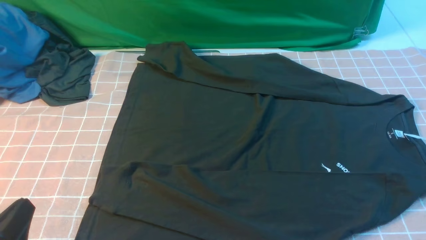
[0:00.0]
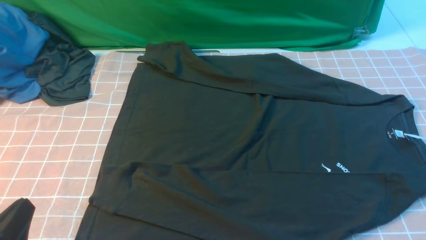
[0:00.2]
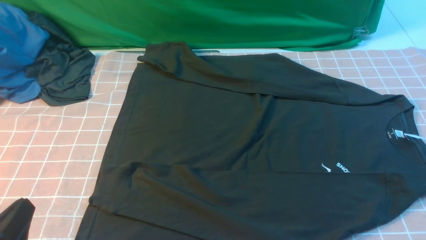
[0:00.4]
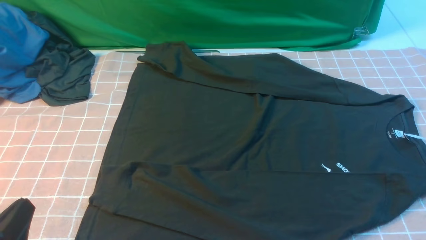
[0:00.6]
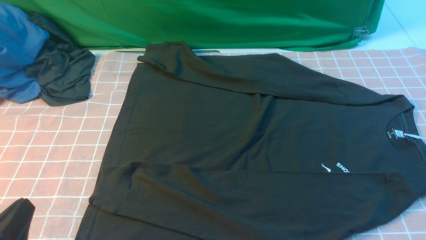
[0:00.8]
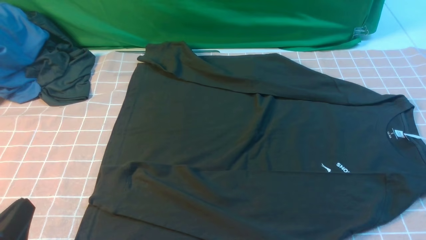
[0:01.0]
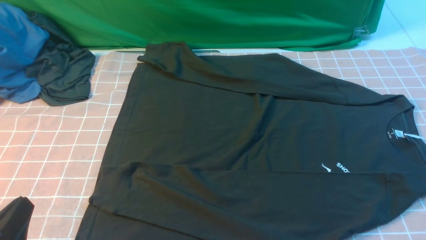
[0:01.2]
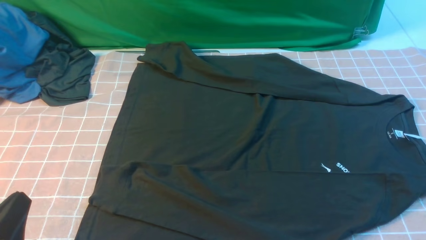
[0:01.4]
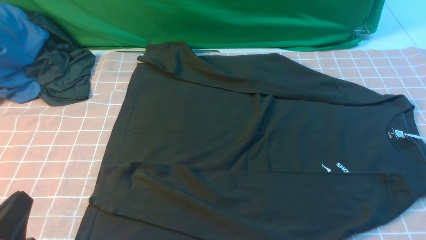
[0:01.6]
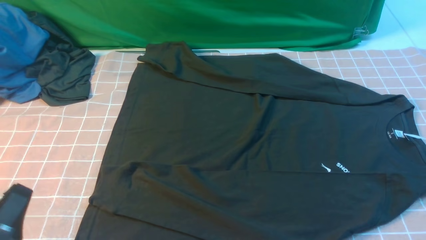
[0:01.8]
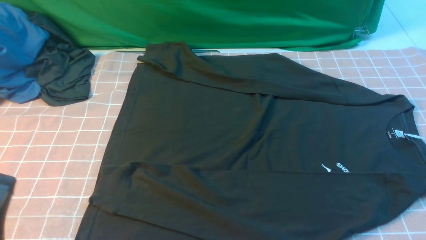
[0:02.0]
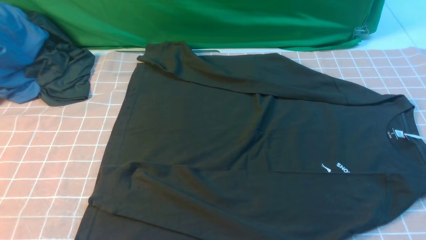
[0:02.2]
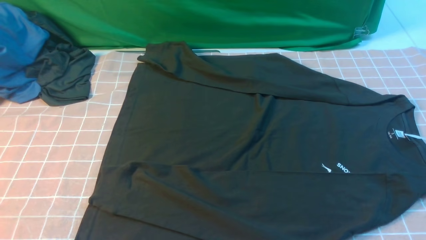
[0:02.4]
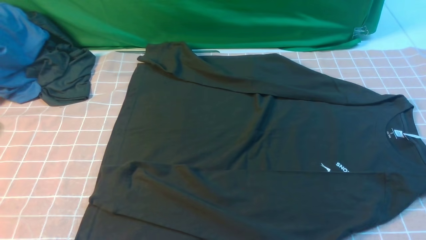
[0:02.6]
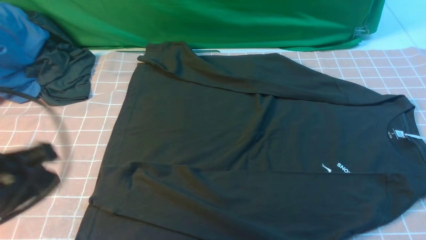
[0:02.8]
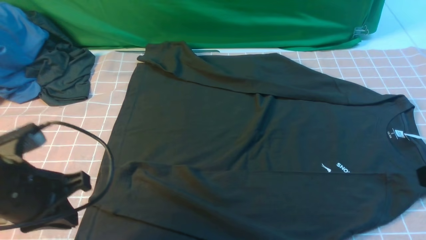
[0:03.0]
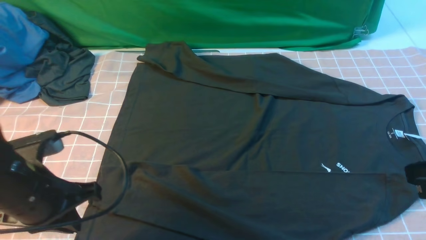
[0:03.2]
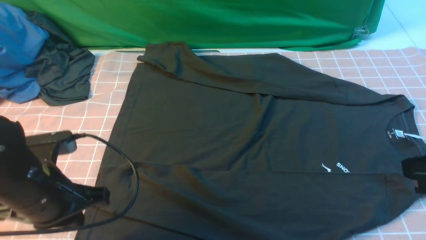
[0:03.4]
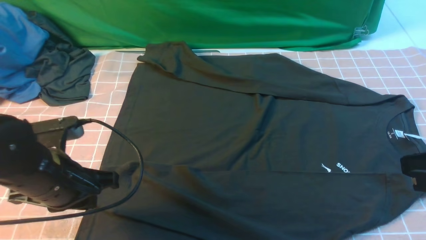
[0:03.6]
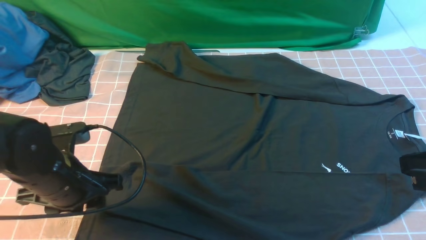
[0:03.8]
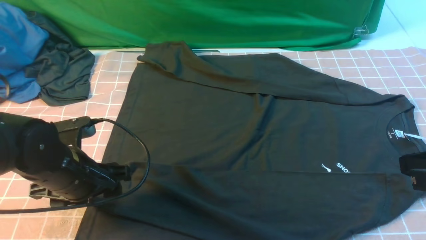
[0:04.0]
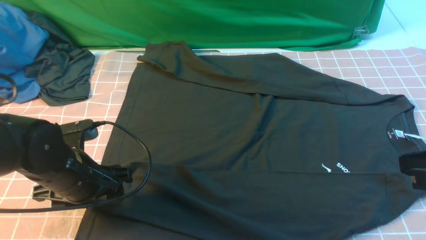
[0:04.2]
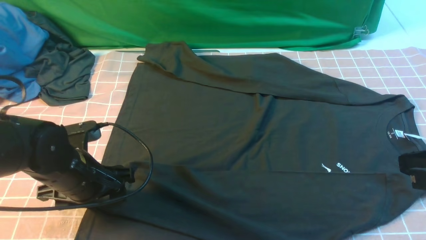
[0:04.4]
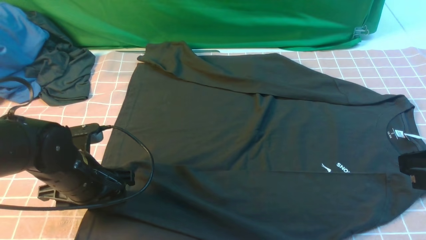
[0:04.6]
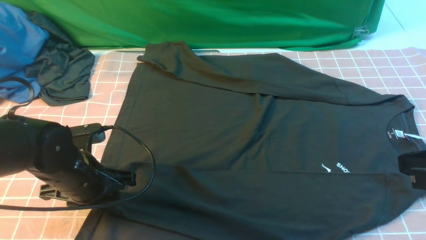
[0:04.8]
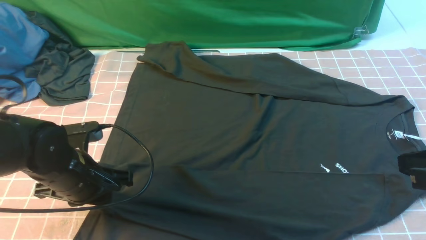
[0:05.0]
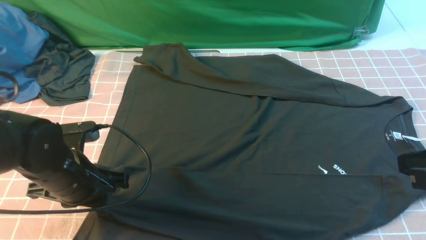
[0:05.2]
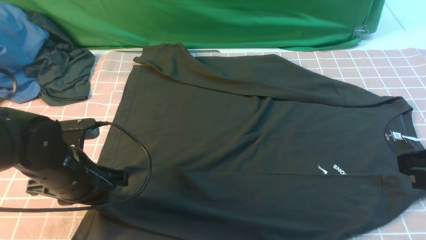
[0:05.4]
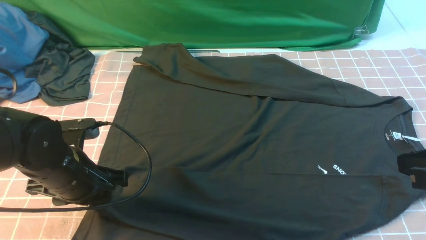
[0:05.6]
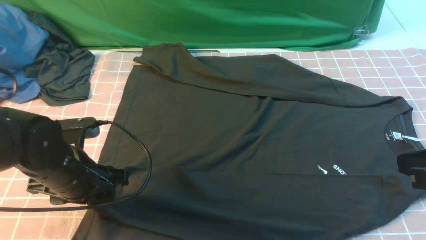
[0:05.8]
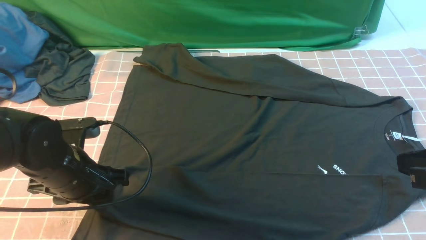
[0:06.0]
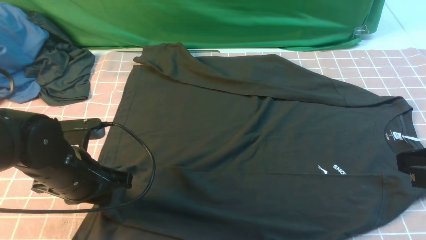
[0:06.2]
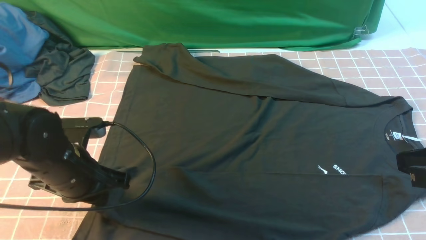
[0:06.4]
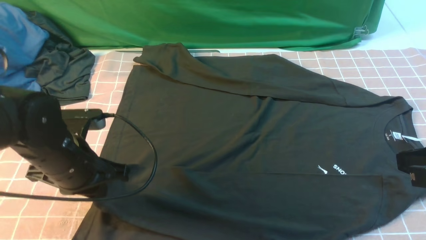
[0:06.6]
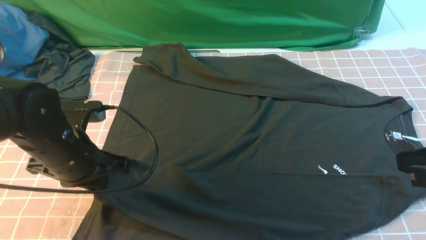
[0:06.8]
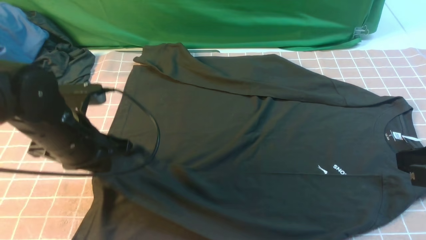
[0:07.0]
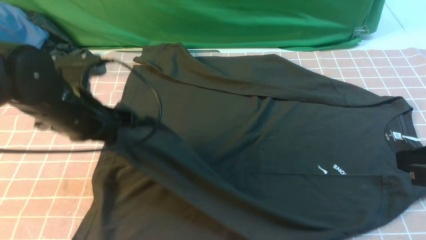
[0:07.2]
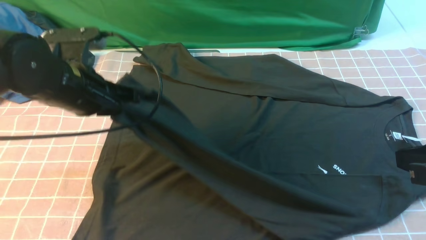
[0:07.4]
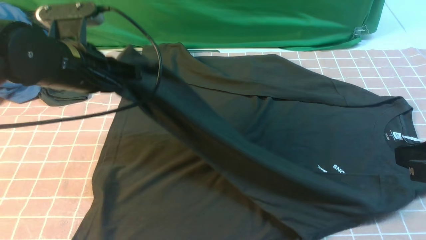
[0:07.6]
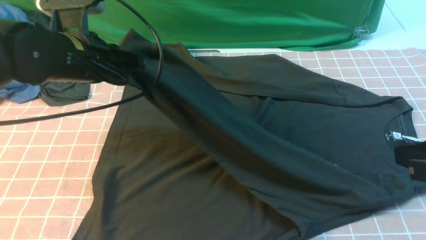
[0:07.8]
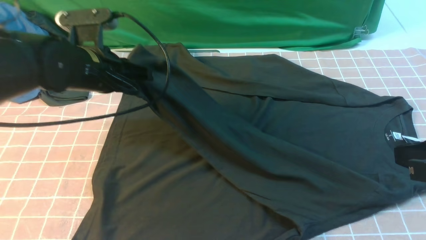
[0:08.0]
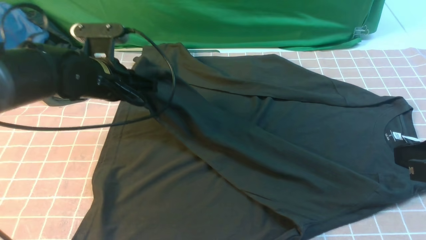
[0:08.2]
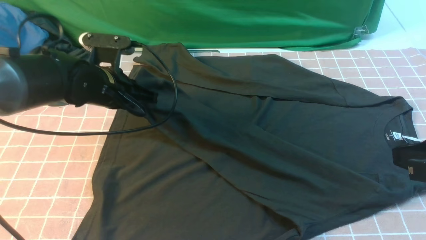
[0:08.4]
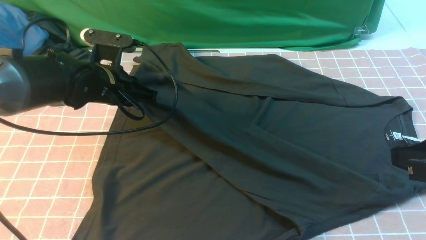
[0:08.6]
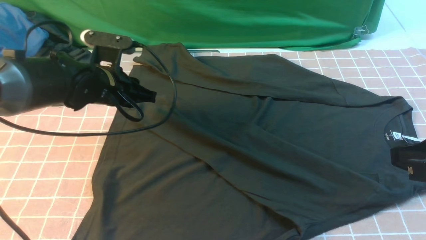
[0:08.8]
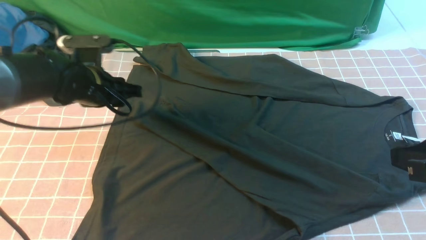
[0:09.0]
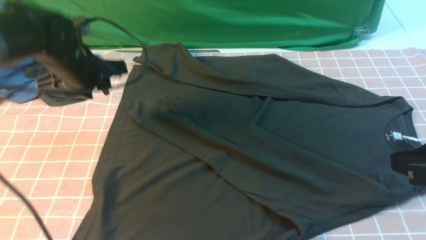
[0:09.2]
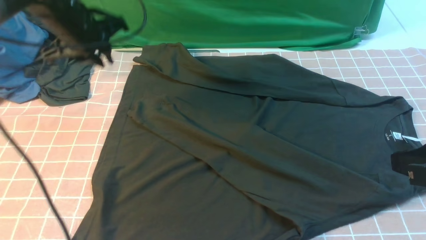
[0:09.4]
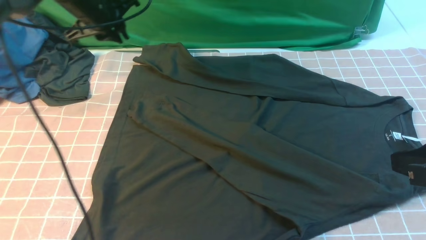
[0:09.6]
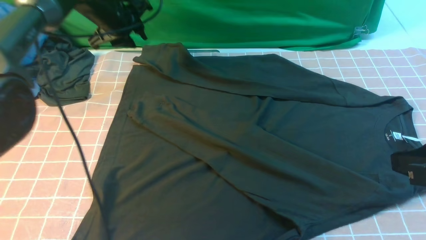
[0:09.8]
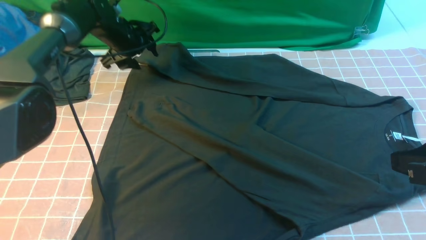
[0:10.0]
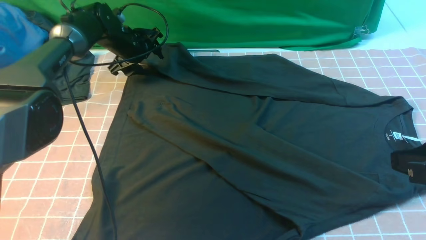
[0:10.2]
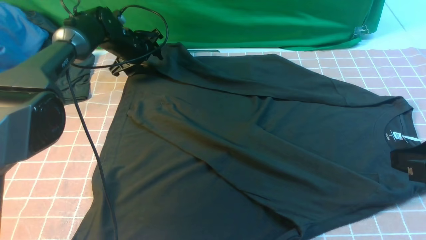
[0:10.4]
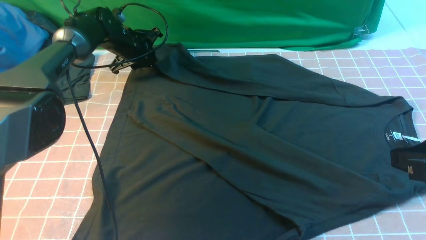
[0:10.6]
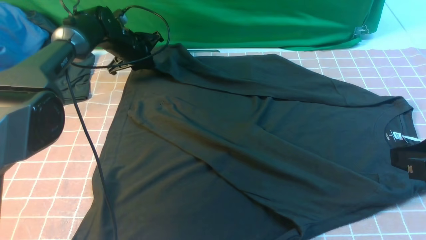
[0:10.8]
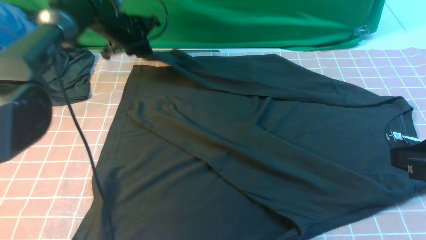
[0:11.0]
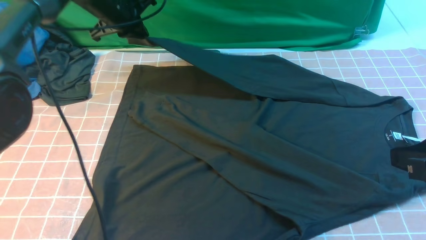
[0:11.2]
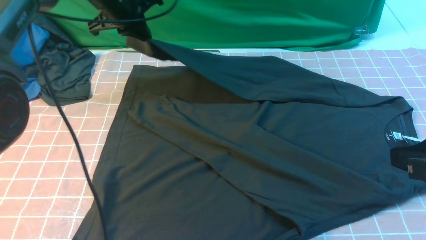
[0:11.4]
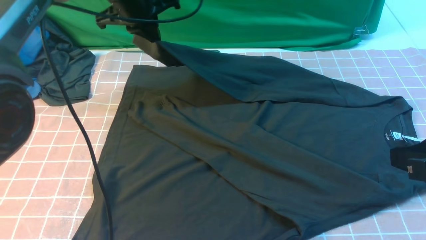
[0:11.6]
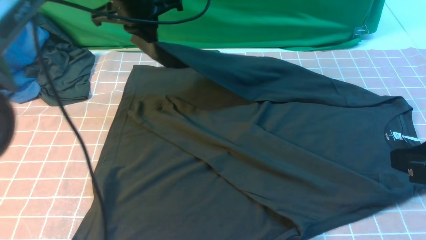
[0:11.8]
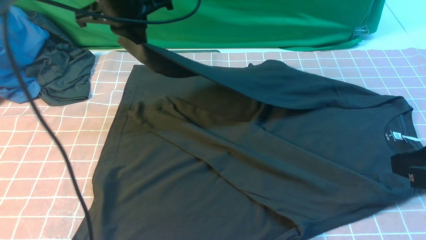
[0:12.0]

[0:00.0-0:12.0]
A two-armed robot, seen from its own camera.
Step, 0.0 to 6.6 s: use the left arm to clamp the cuff closest to it.
Step, 6.8 to 9.0 s: use the left arm to drag and place the cuff at the centered position on the left edge of the fabric.
Step, 9.2 to 10.8 s: use the left arm to clamp the cuff farthest from it.
1.6 to 3.0 s: The left gripper shifts approximately 15 cm forward and upward.
3.0 to 4.4 s: The left gripper is displaced downward and forward by roughly 15 cm, and opens.
4.4 to 6.0 s: The left gripper closes up.
6.0 to 7.6 s: The left gripper shifts approximately 10 cm upward and forward, and closes.
7.6 to 9.0 s: The left gripper goes some 10 cm downward and forward, and opens.
9.0 to 10.4 s: The left gripper goes about 20 cm forward, and opens up.
10.4 to 12.0 s: The left gripper goes about 20 cm upward and backward, and closes.

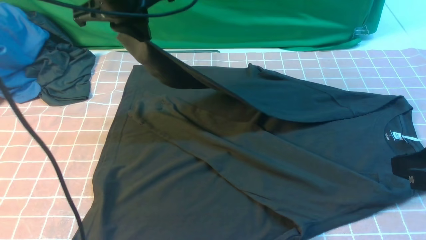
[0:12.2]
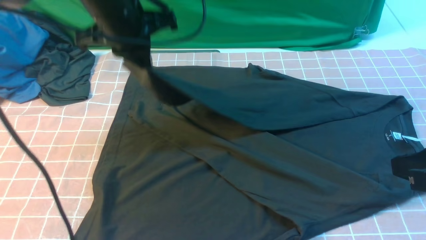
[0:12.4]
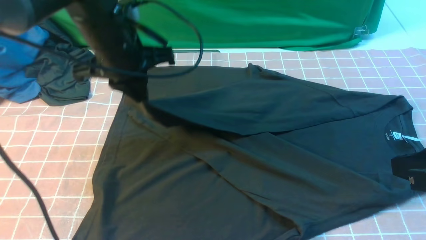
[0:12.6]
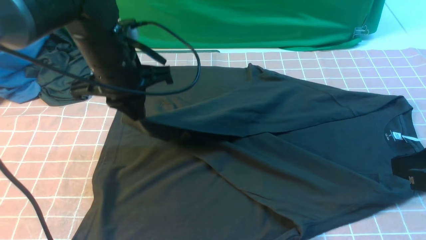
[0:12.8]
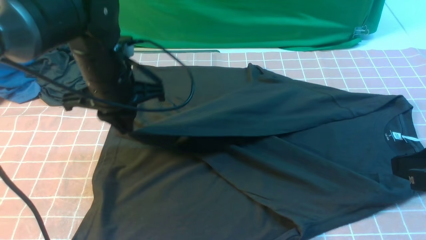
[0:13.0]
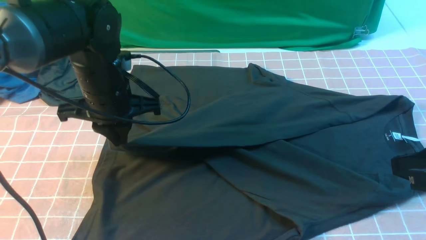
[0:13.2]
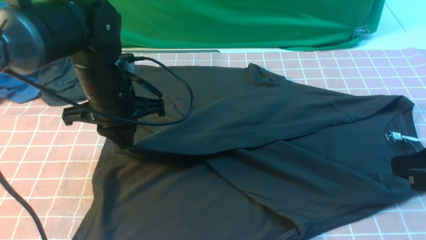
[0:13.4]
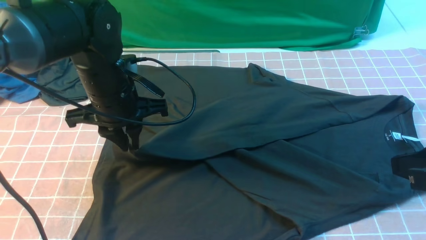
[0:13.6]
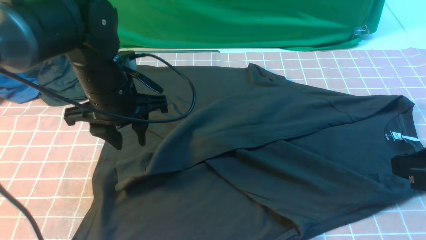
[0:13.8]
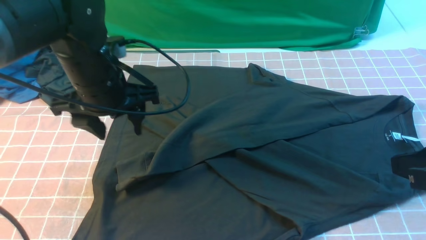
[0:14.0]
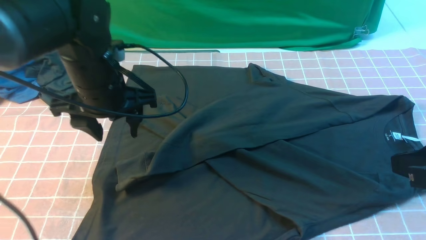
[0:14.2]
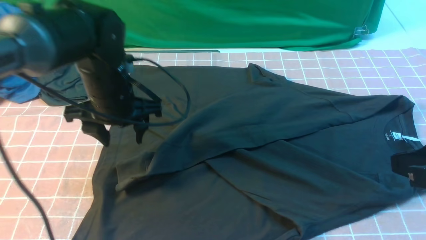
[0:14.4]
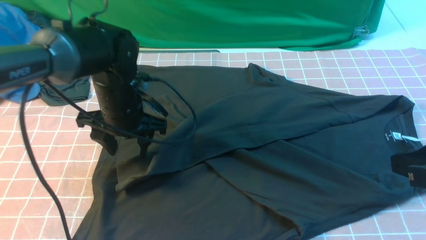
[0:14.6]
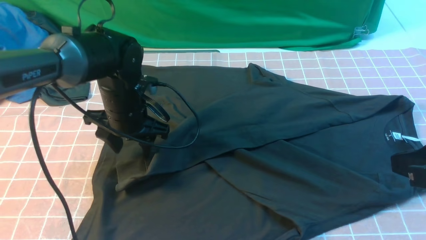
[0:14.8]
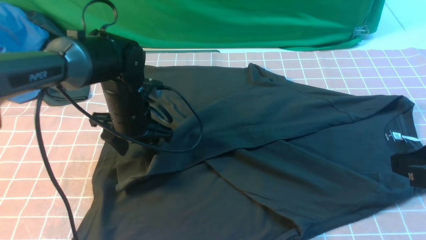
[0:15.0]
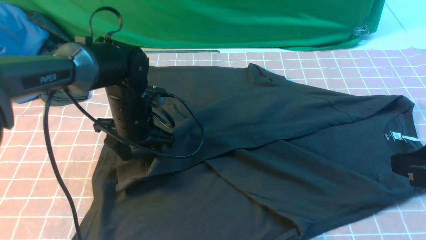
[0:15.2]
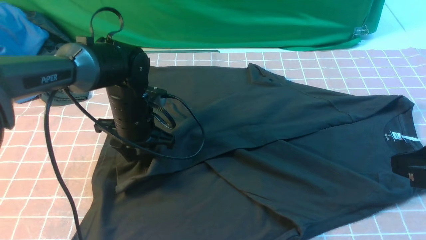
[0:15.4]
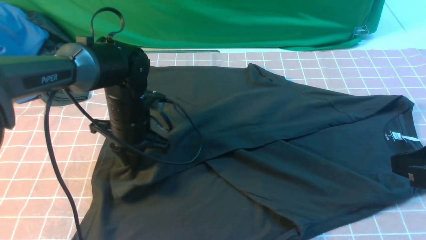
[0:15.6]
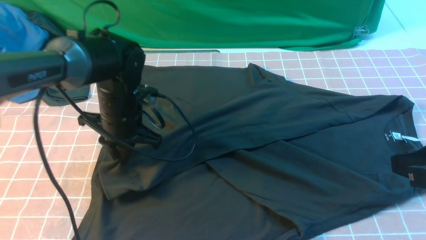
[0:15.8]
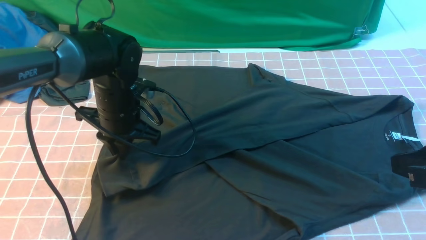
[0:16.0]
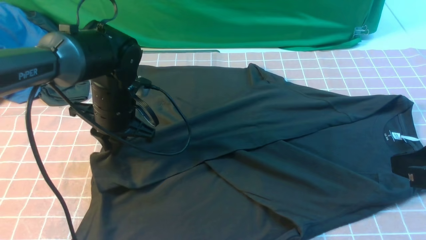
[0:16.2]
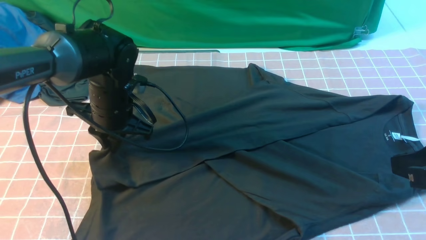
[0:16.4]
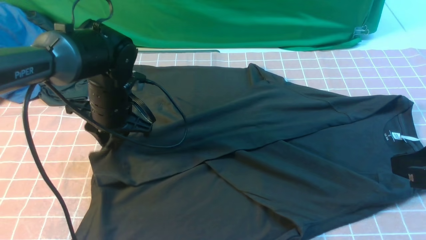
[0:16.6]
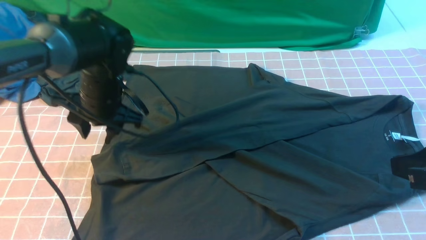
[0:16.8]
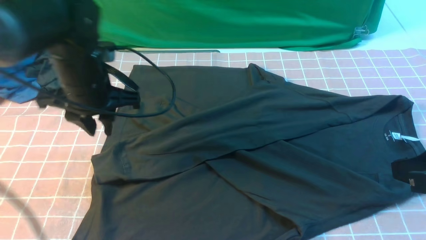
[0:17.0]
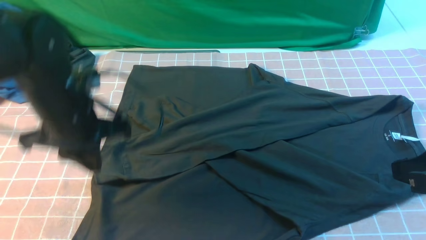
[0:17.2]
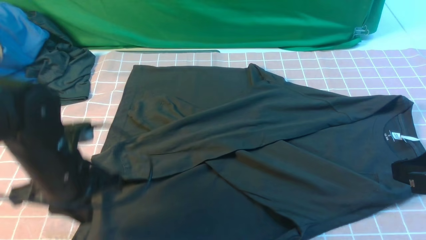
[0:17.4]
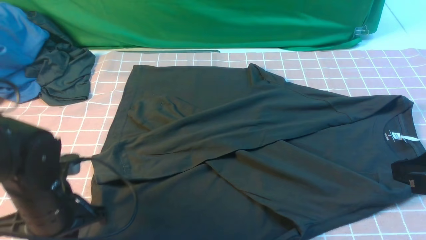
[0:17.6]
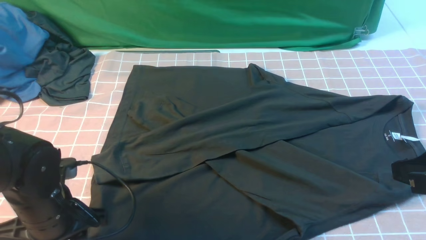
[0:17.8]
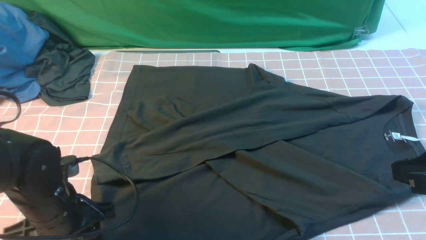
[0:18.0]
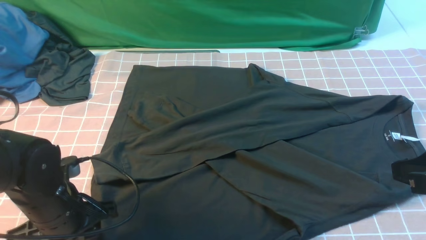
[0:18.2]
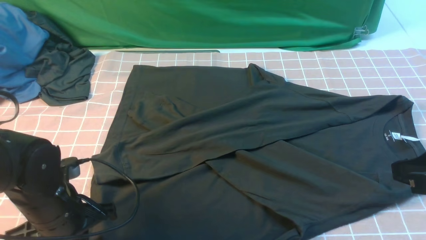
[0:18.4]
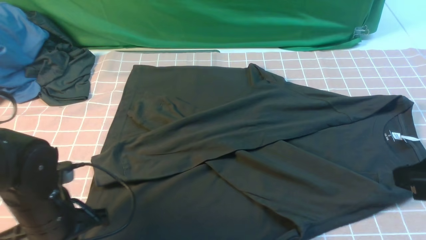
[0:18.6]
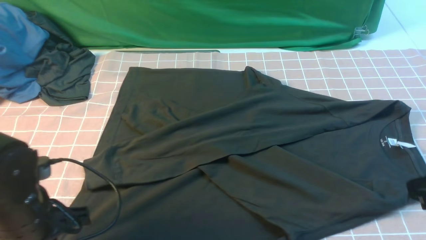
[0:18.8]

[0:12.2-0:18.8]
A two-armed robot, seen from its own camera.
Step, 12.2 to 13.8 s: use the left arm to drag and drop the cuff onto the cuff closest to the left arm.
12.2 to 13.8 s: The left gripper is displaced downward and backward by roughly 10 cm, and opens up.
13.8 to 15.4 s: The left gripper heads downward, covering some 10 cm.
15.4 to 17.2 s: The left gripper is displaced upward and backward by about 10 cm, and closes up.
17.2 to 18.8 s: The left gripper travels backward and downward by some 15 cm, and opens and closes again.
